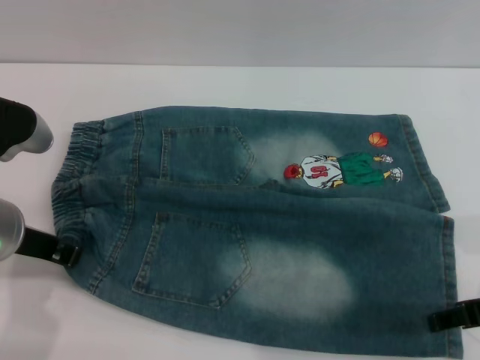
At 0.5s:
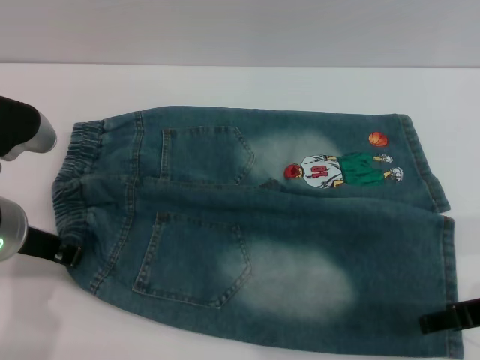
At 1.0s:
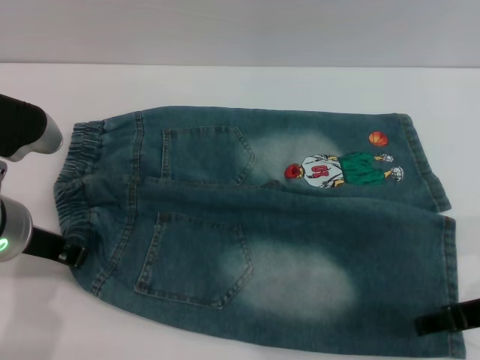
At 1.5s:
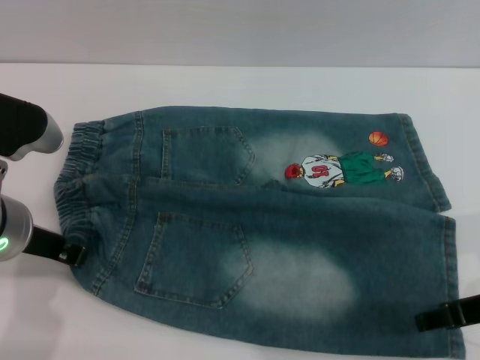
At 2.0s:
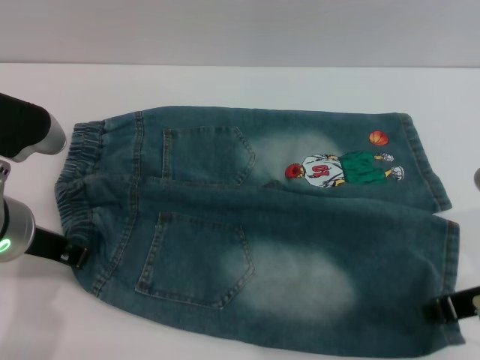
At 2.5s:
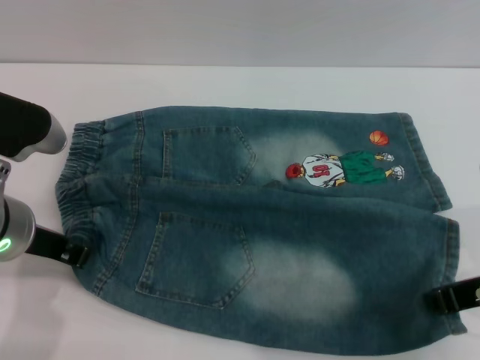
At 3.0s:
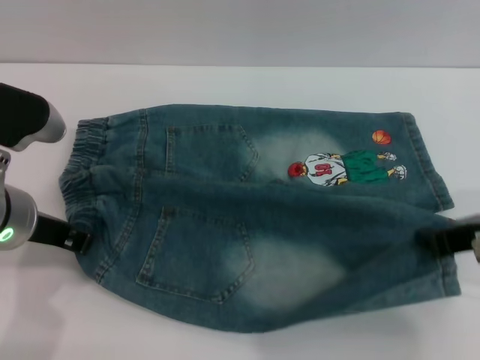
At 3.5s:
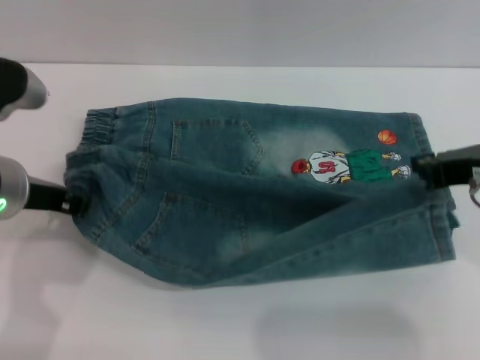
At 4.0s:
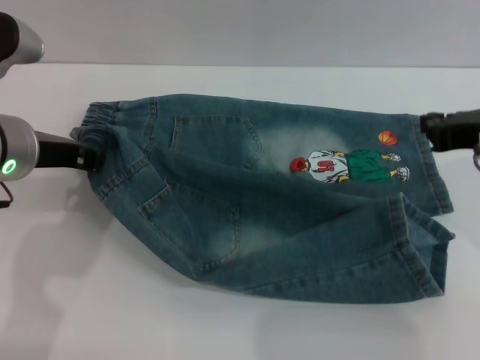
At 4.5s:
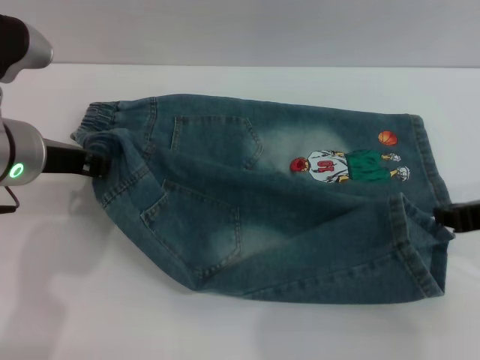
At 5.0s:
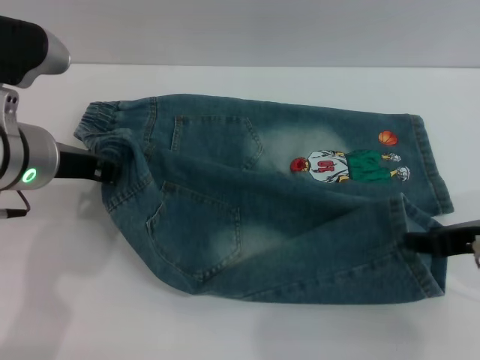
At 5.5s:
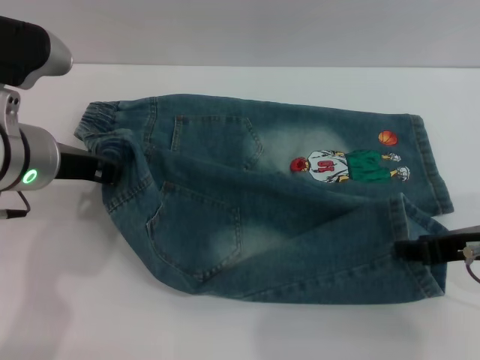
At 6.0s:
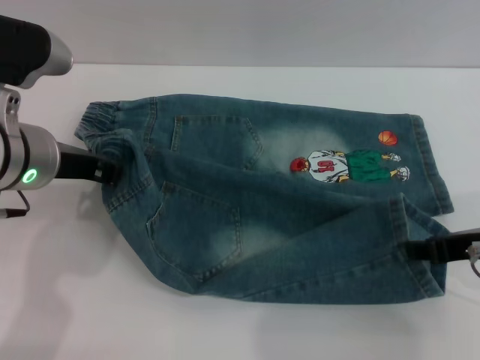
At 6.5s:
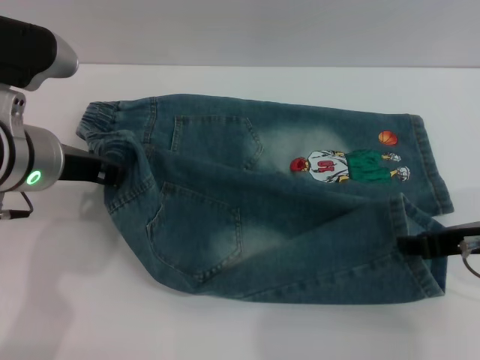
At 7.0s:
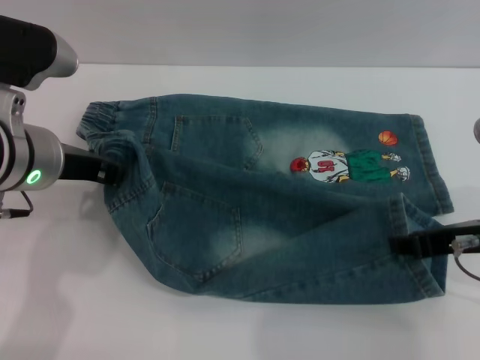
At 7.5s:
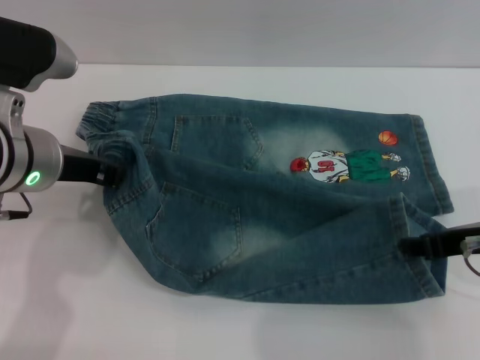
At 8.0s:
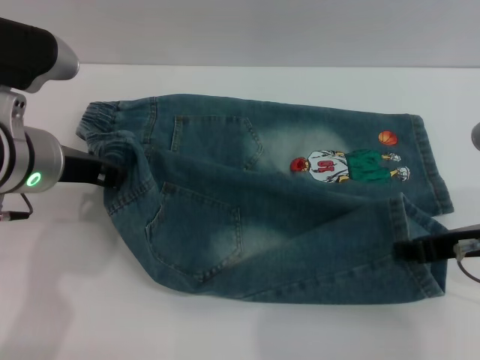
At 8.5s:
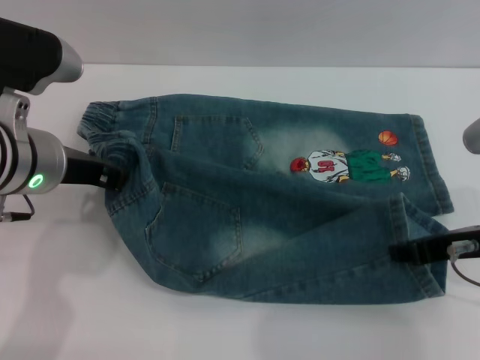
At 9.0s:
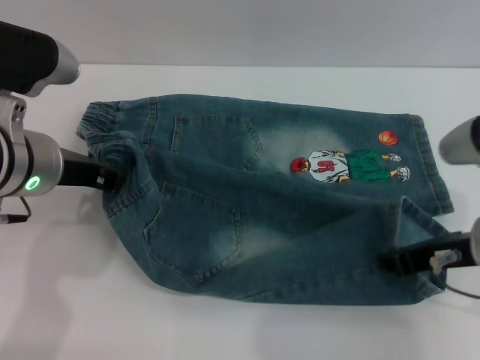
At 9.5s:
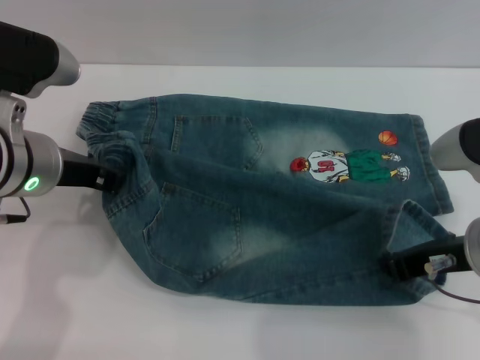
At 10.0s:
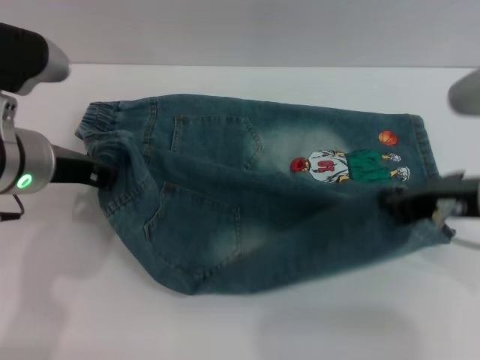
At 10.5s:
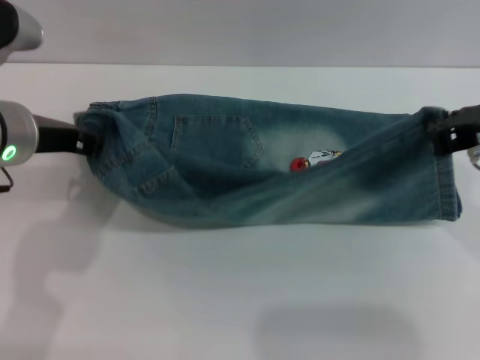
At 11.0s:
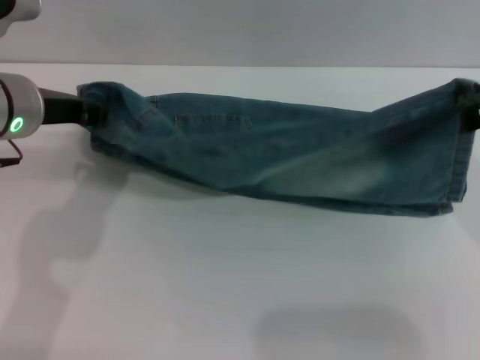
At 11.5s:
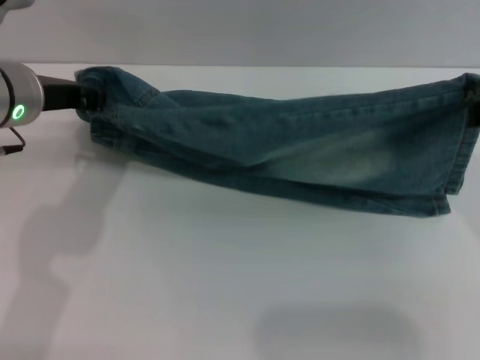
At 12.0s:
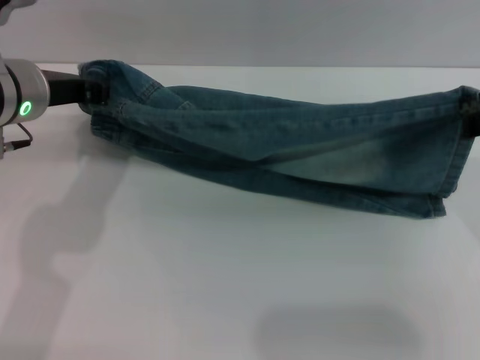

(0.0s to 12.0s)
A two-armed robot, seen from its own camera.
0.0s - 2.0s: The right gripper closes up.
2.0s - 4.0s: The right gripper heads forward and upward, covering roughly 10 cm. Meanwhile the left gripper moves some 5 cm.
4.0s - 6.0s: The right gripper shifts roughly 5 cm downward, and opens.
6.0s - 8.0s: The two grippers keep their place.
8.0s - 10.0s: The right gripper moves upward, approximately 5 cm, and closes its fingers.
10.0s - 12.0s: The left gripper travels forward by some 5 cm.

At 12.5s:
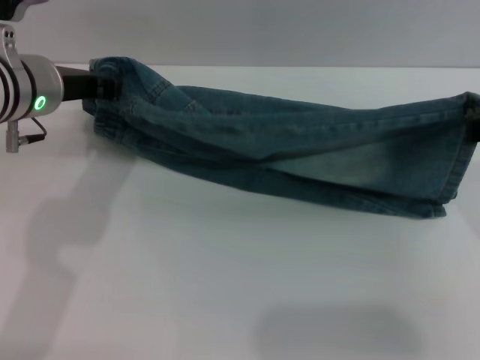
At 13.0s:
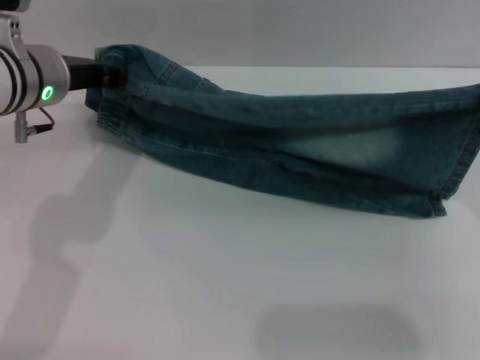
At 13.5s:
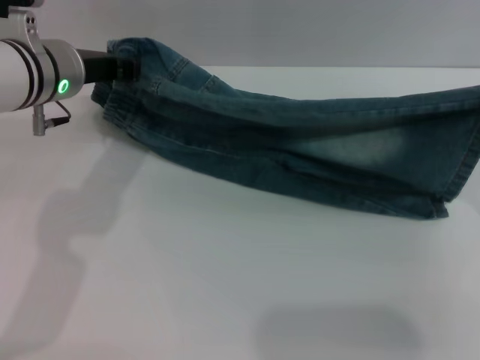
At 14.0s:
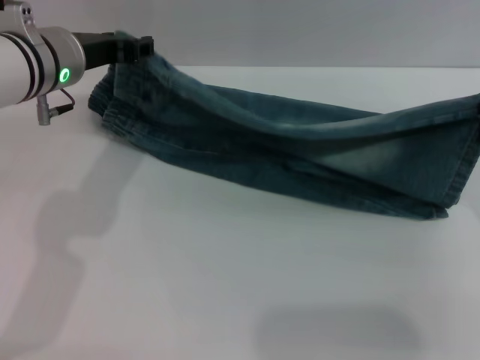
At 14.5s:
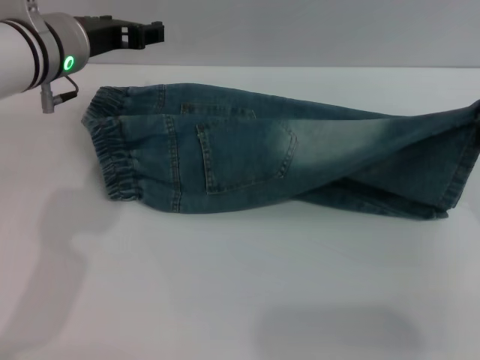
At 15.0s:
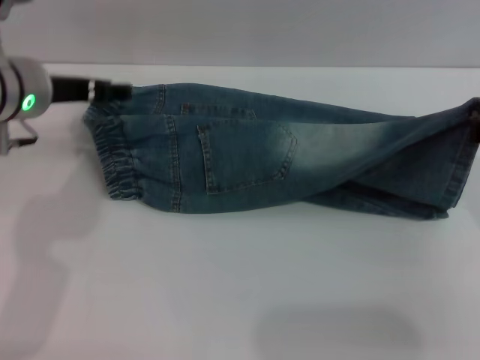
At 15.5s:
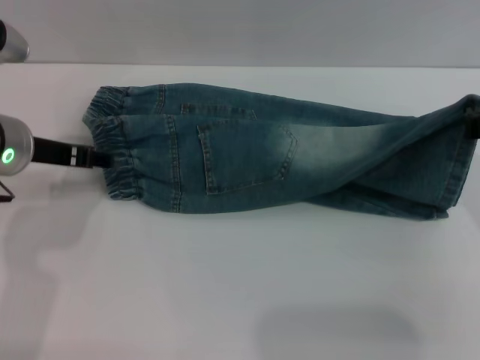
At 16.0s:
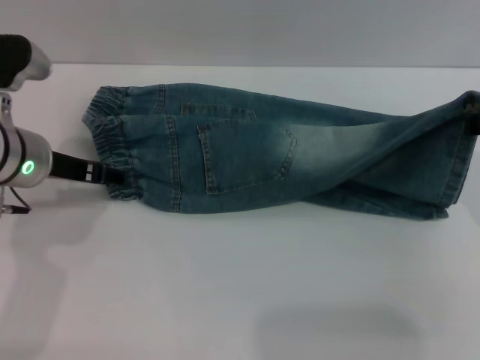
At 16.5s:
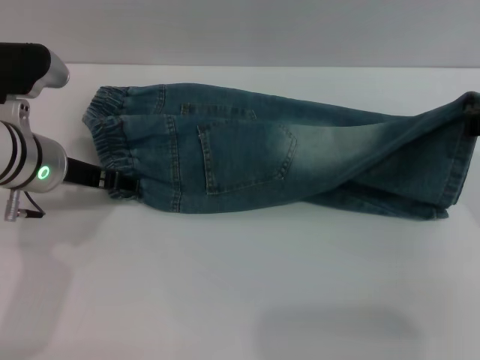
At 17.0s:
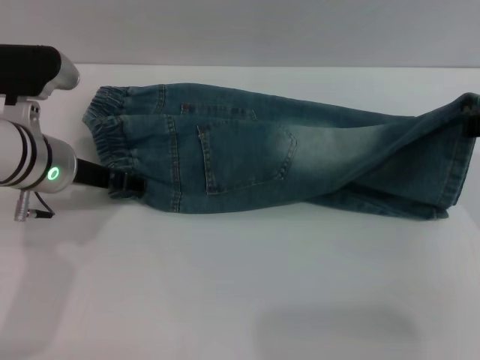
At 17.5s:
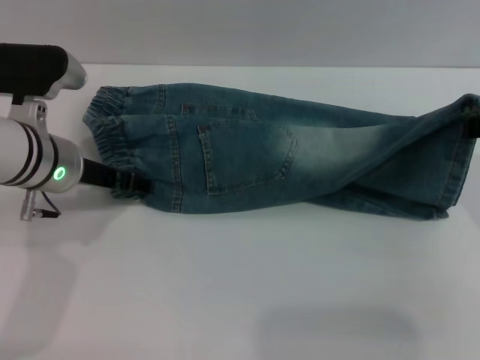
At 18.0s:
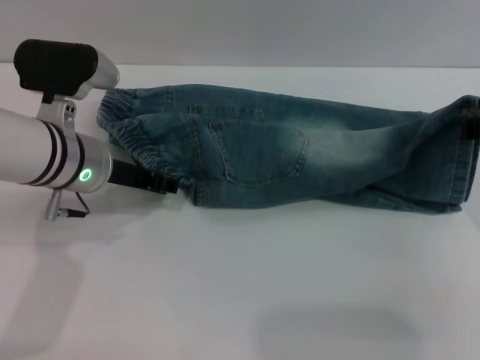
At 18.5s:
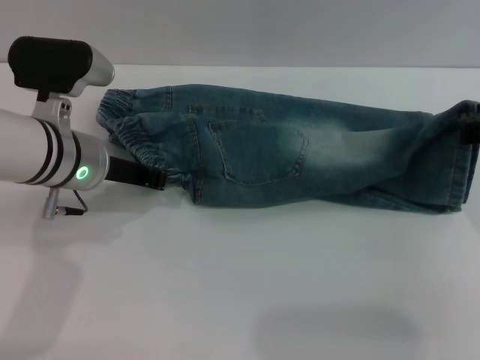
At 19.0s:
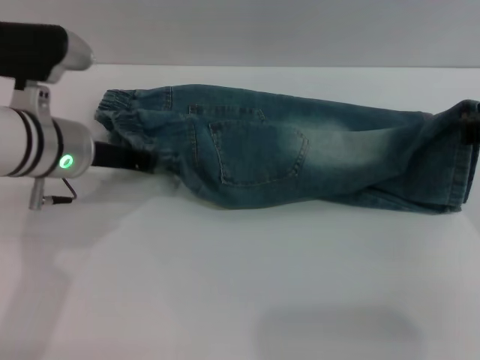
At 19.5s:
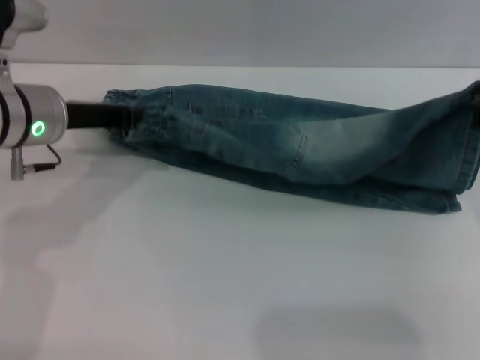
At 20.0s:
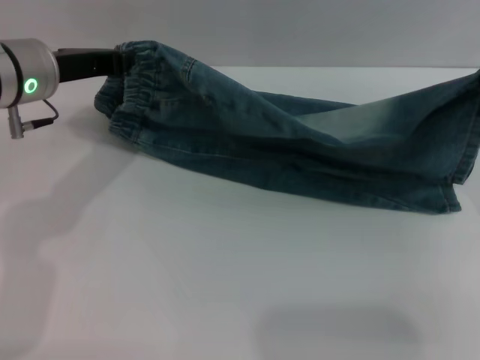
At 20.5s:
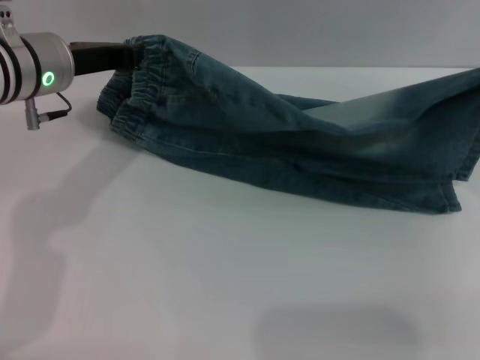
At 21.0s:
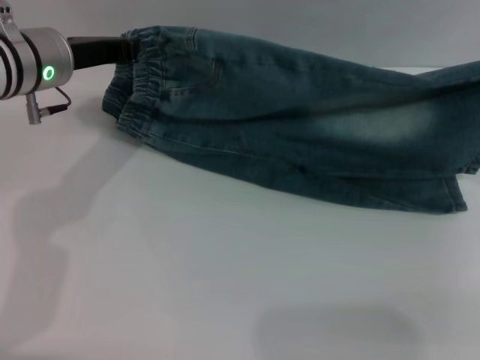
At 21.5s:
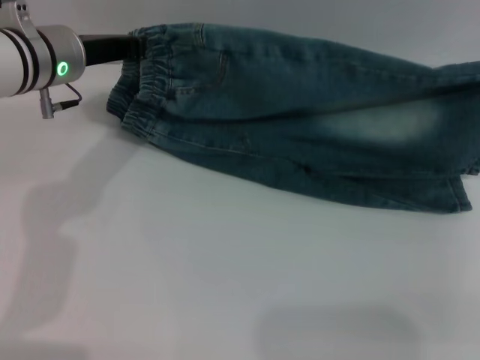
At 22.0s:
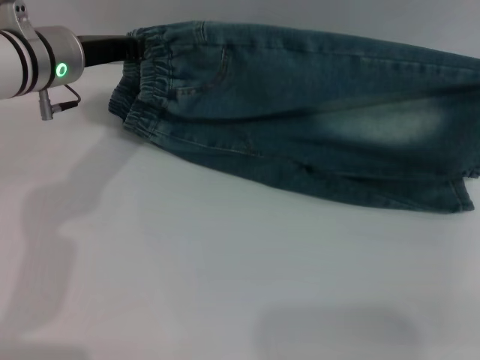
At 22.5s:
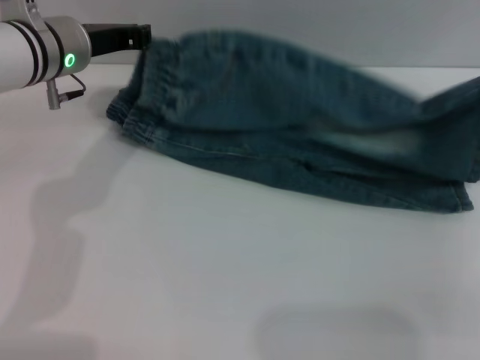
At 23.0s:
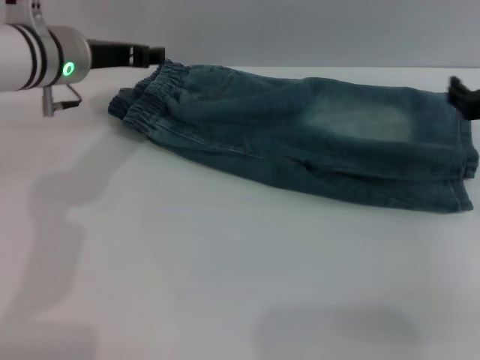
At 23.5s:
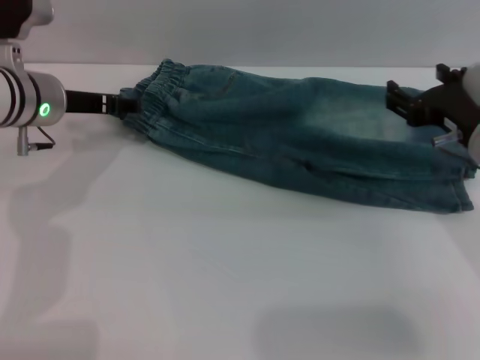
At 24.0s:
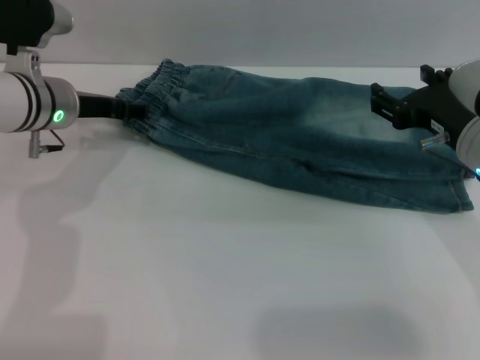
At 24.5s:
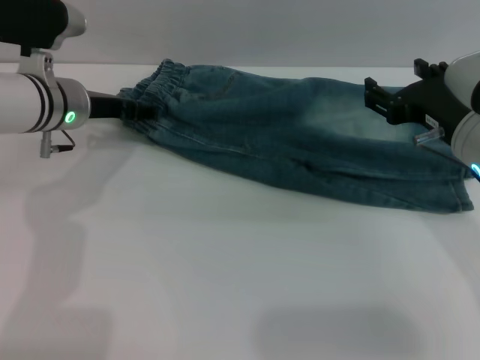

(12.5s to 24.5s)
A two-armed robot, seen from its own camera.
Step, 12.5s - 22.5s: Fold the bottom of the pants upward with both grippers.
12.5s - 14.5s: The left gripper opens.
14.5s - 16.5s: The left gripper travels downward and backward by roughly 10 cm.
16.5s - 18.5s: The left gripper closes its fingers.
18.5s - 20.5s: The left gripper changes place by about 5 cm.
20.5s - 22.5s: There are only small adjustments of the grippers.
22.5s - 24.5s: The right gripper heads to the left, covering approximately 10 cm, and opens its fingers; the left gripper is displaced downward by about 5 cm, and opens.

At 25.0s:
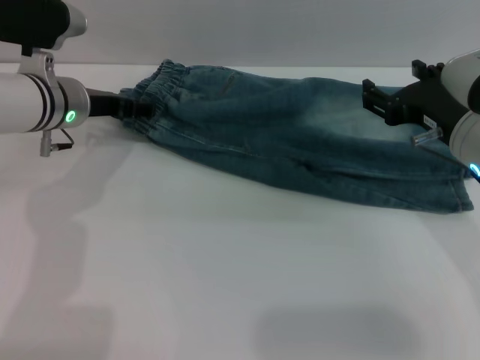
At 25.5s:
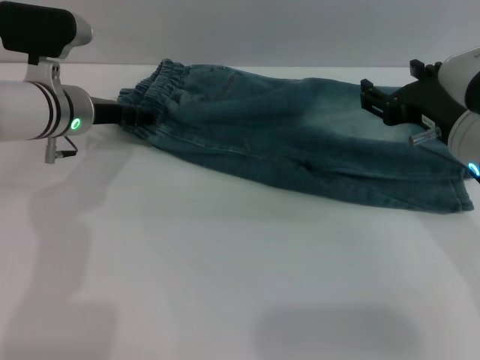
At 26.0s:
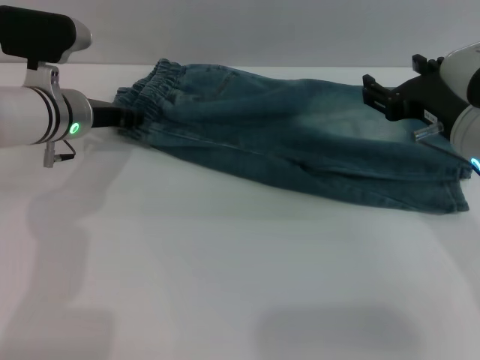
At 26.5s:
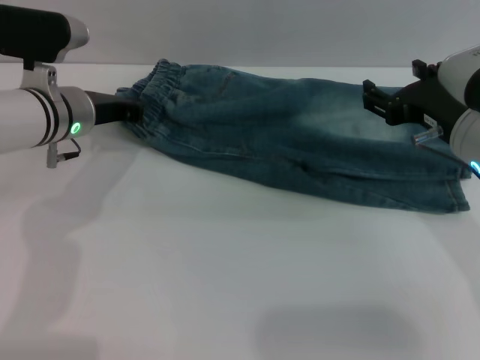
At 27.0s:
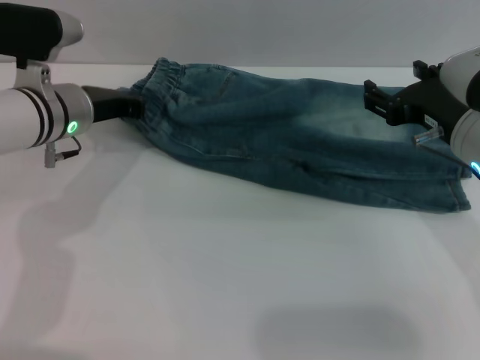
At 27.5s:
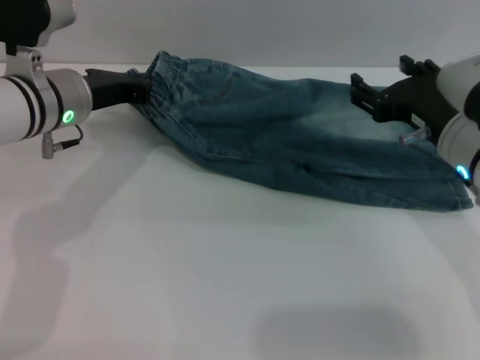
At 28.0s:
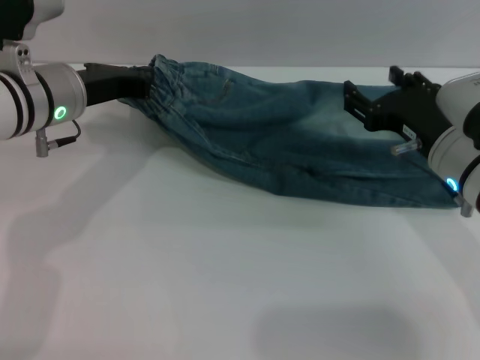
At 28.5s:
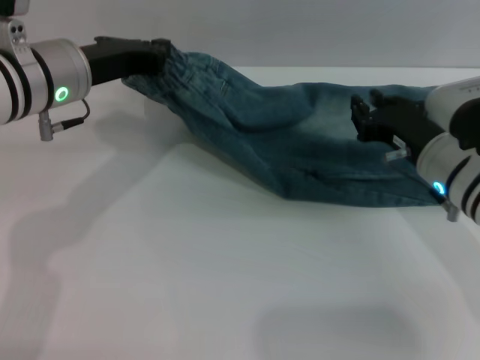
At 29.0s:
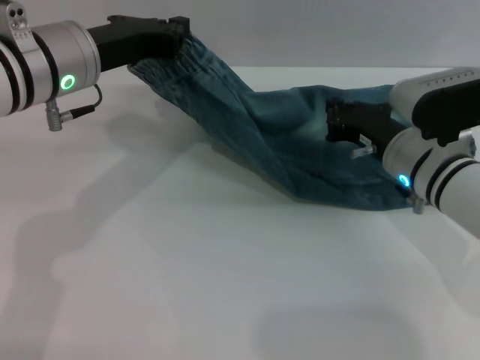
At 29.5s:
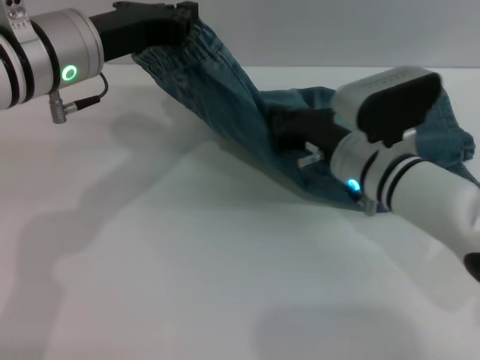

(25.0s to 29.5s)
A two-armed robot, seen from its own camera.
25.0s - 27.0s: The left gripper closes.
27.0s - 29.5s: The right gripper shifts approximately 10 cm to the left and downward, and closes up. Meanwhile the left gripper moves upward, approximately 10 cm.
